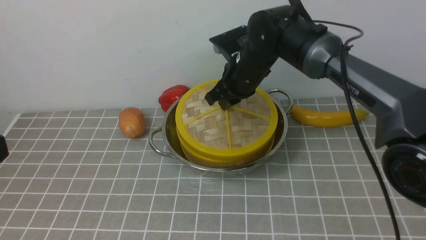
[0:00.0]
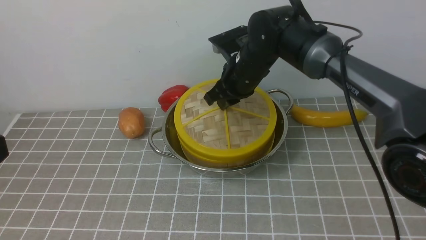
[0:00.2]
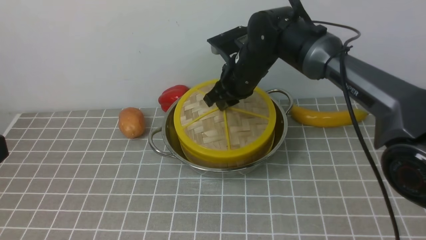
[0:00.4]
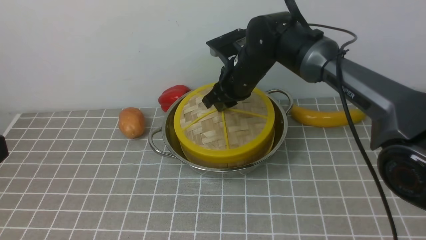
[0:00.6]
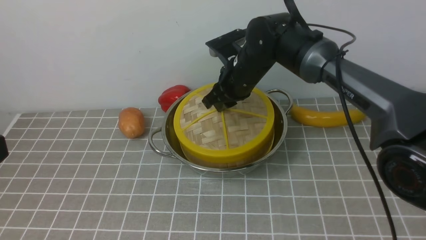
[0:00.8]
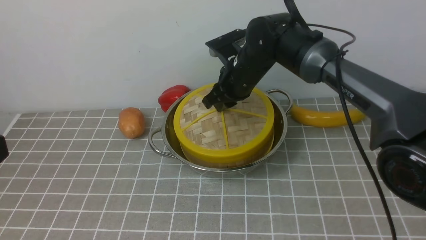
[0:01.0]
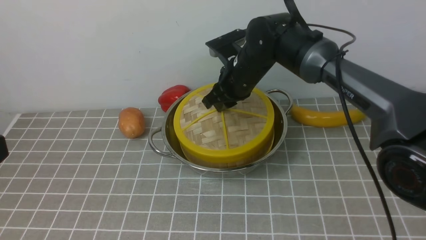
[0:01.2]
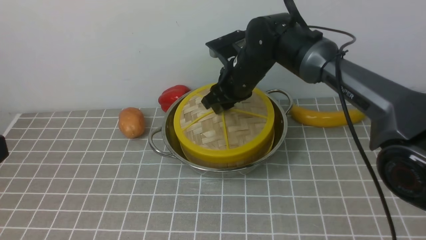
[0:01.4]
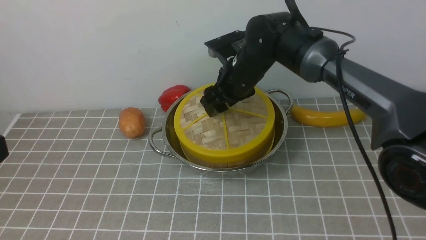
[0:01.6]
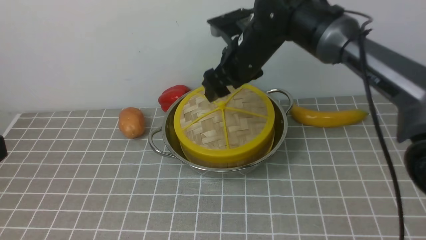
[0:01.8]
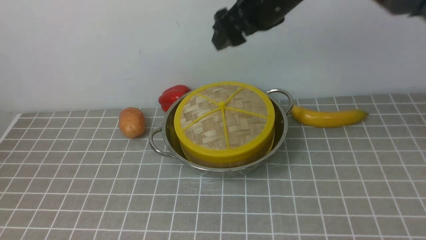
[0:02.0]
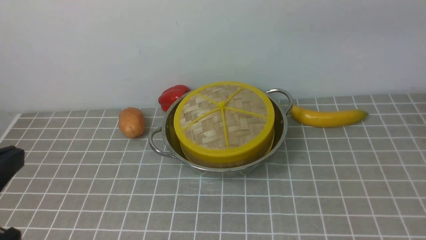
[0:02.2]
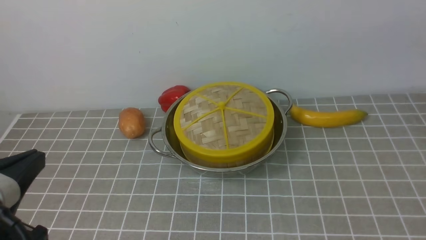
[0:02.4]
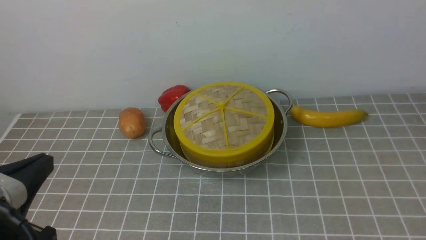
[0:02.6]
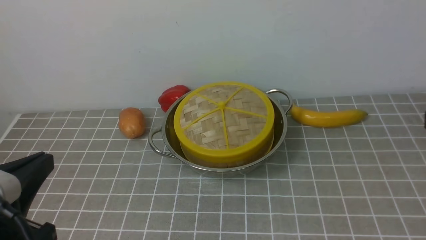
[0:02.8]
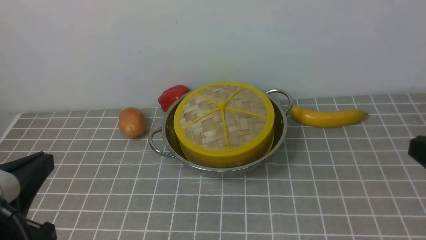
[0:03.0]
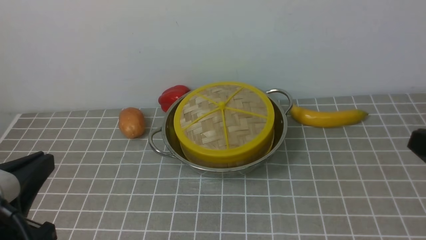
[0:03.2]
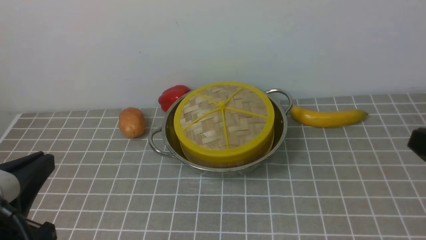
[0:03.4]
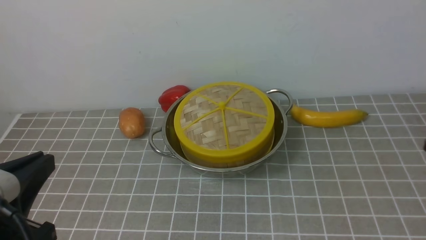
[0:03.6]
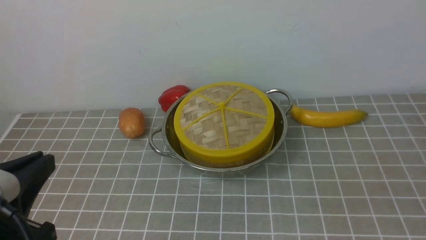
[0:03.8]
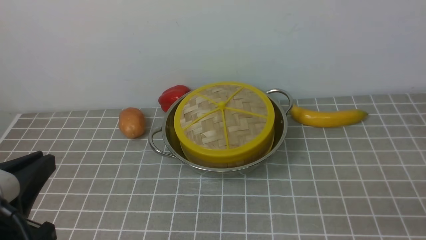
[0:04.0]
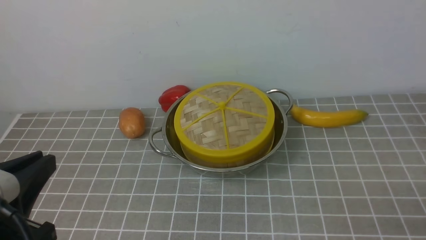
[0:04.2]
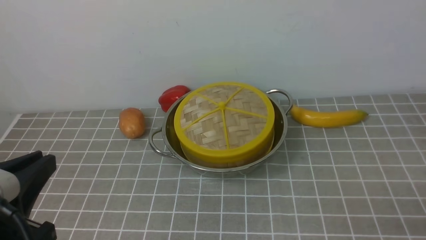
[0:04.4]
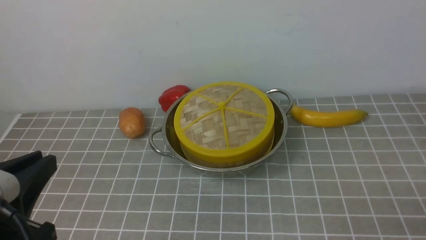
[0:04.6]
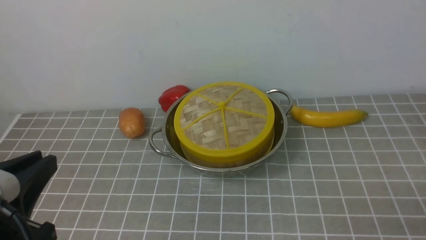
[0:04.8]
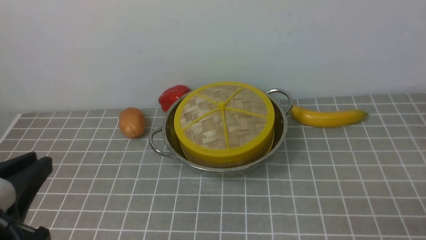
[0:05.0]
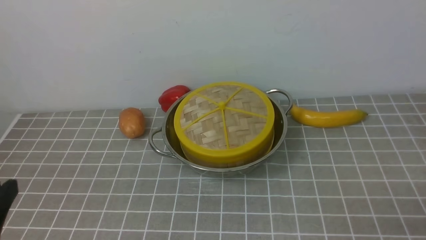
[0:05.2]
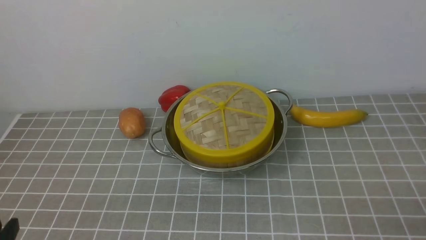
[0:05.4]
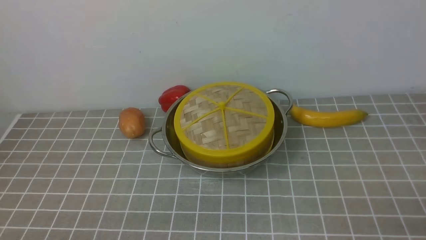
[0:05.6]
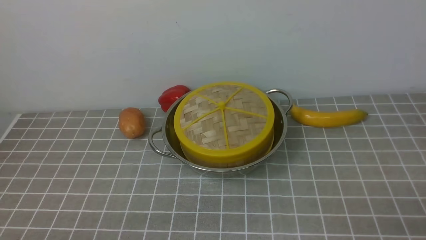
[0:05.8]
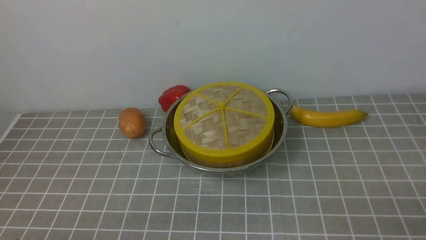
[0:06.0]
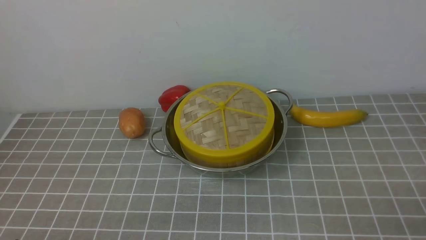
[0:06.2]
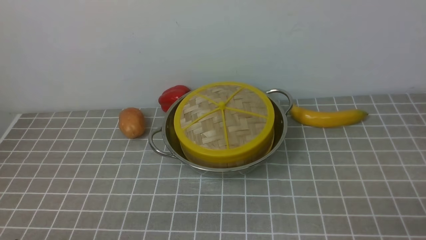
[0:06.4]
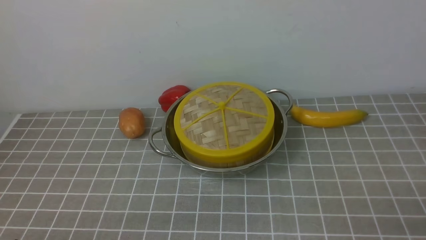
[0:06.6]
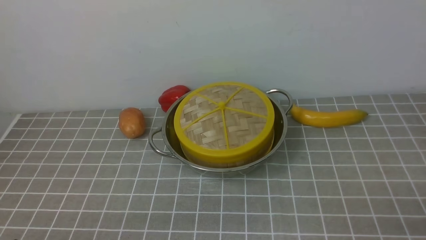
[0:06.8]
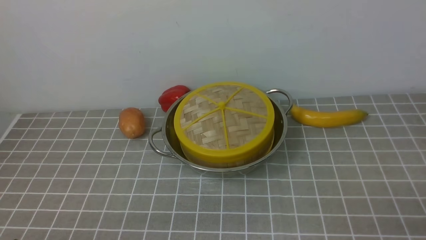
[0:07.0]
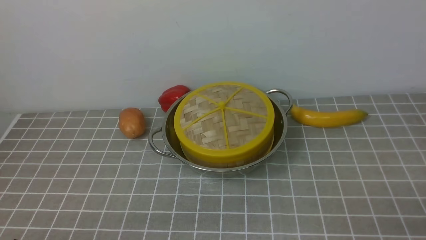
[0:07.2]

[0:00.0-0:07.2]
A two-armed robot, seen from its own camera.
Task of the whole recording: place the steamer in the pot on the grey tablecloth, and put the lid on the steamer.
0:00.0 to 0:01.4: The right gripper opens its fingers.
0:01.4 to 0:02.8: The left gripper travels downward by about 10 cm. The right gripper goes approximately 40 cm backward and to the right, and closes its fingers.
0:04.4 to 0:05.8: The left gripper heads downward, covering approximately 15 cm.
0:05.8 to 0:07.2: Both grippers stay put.
